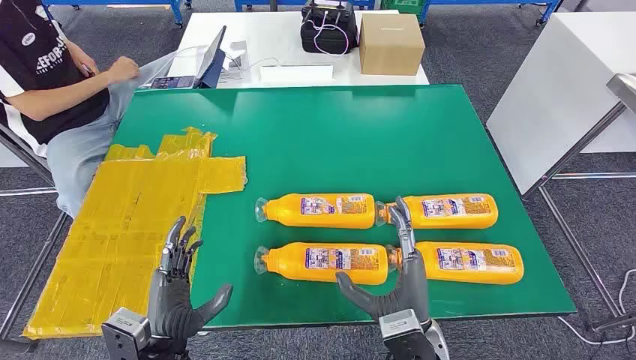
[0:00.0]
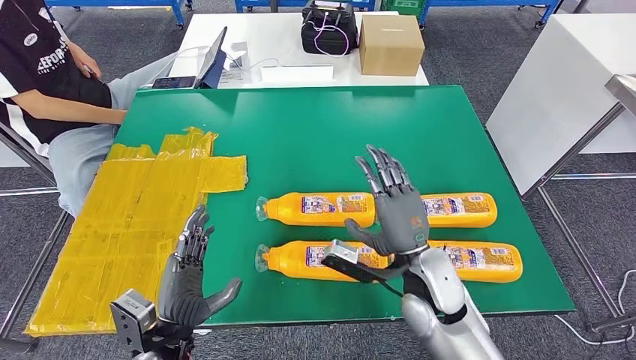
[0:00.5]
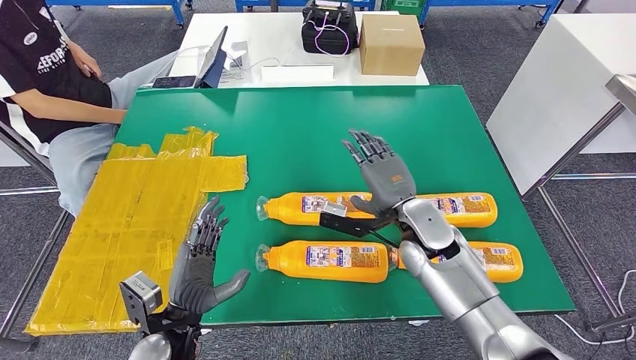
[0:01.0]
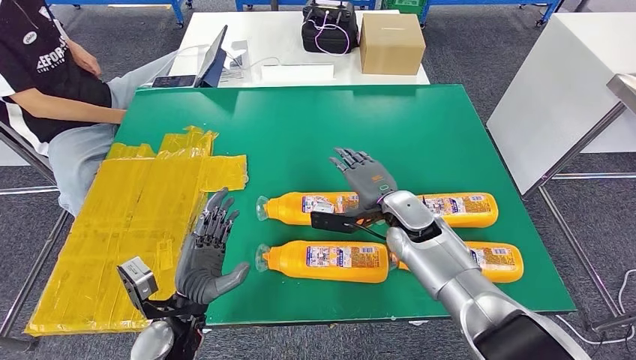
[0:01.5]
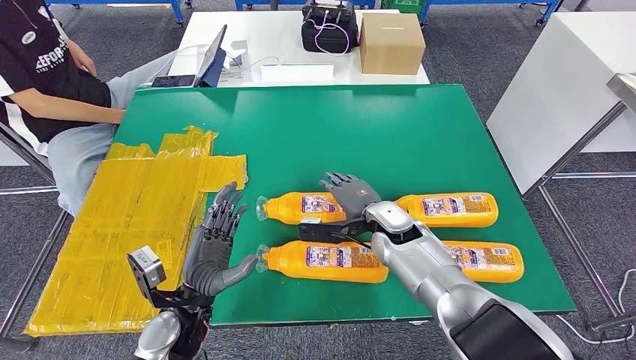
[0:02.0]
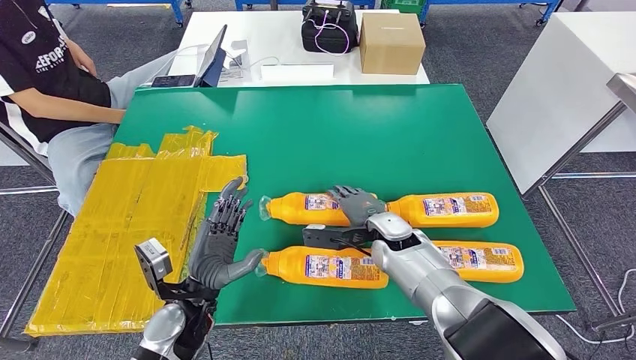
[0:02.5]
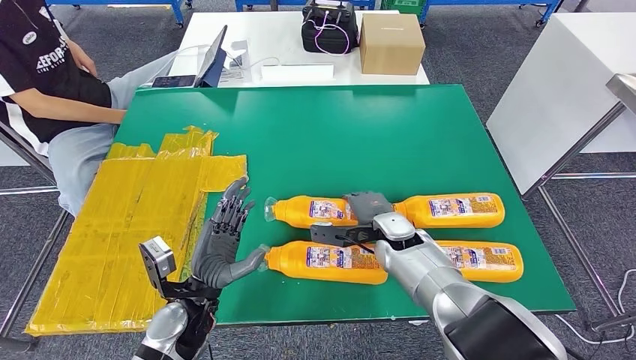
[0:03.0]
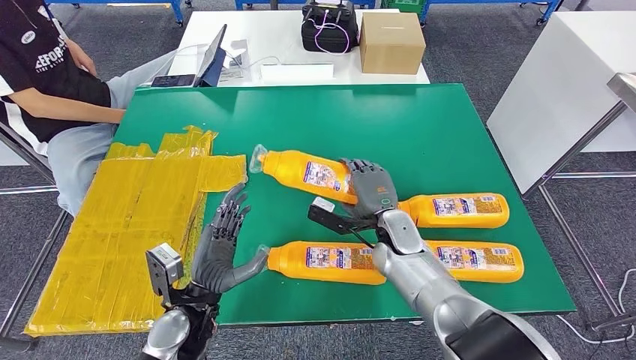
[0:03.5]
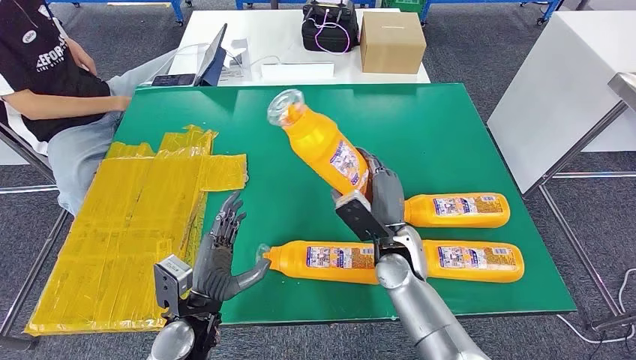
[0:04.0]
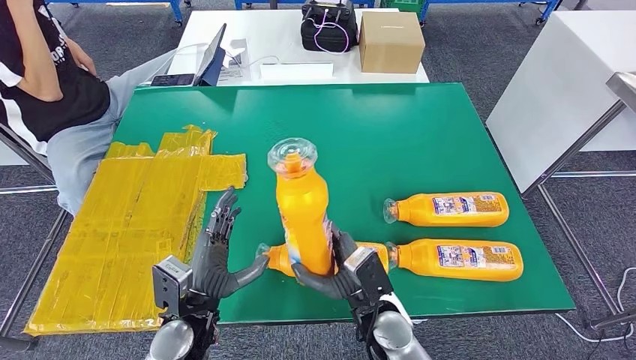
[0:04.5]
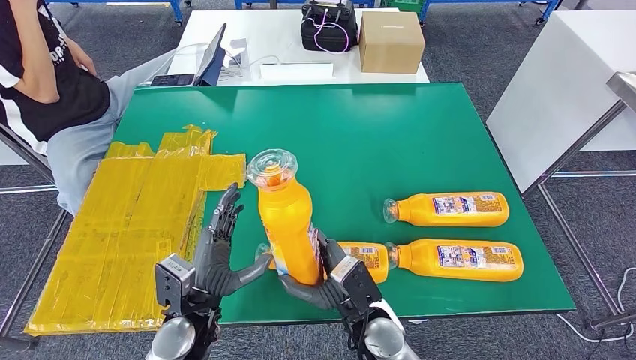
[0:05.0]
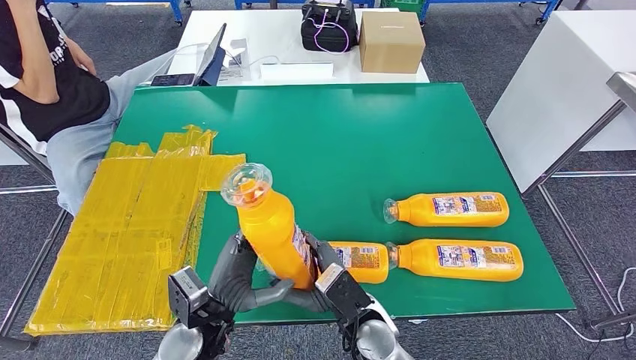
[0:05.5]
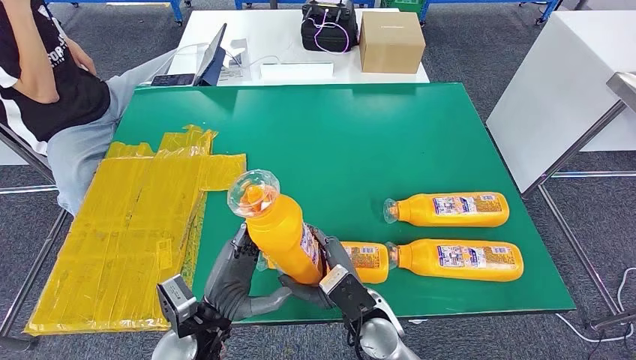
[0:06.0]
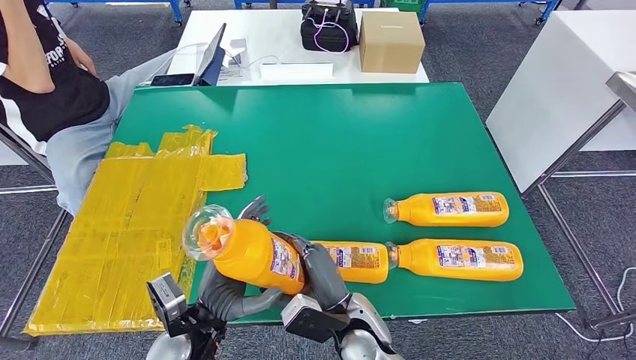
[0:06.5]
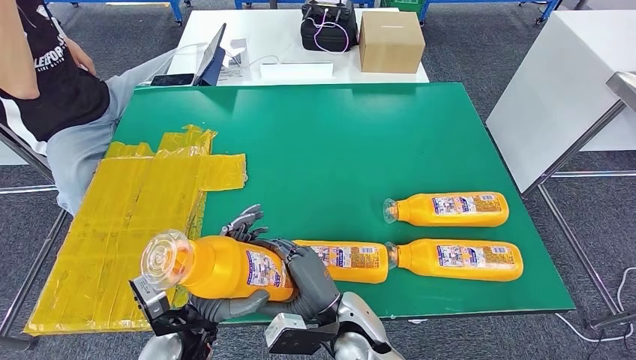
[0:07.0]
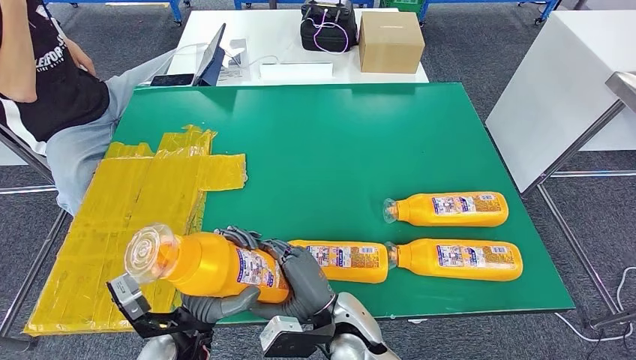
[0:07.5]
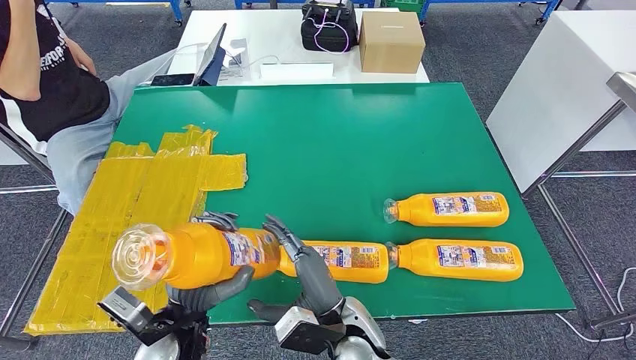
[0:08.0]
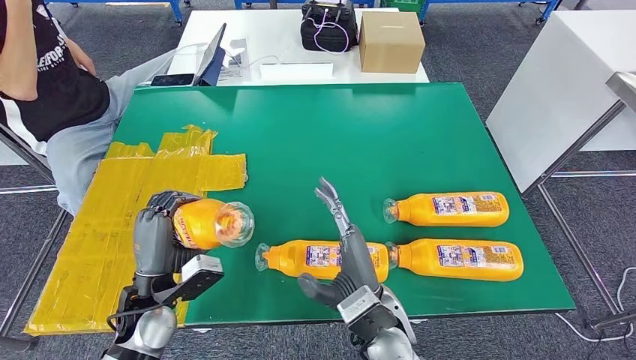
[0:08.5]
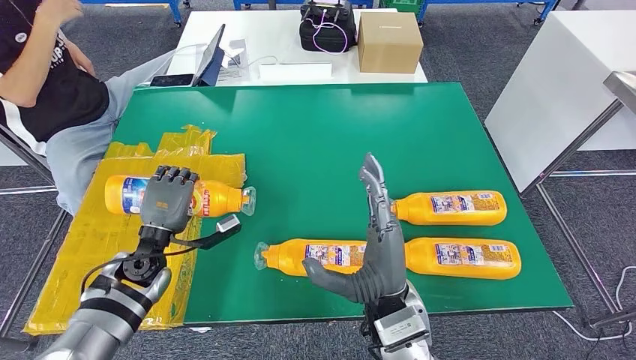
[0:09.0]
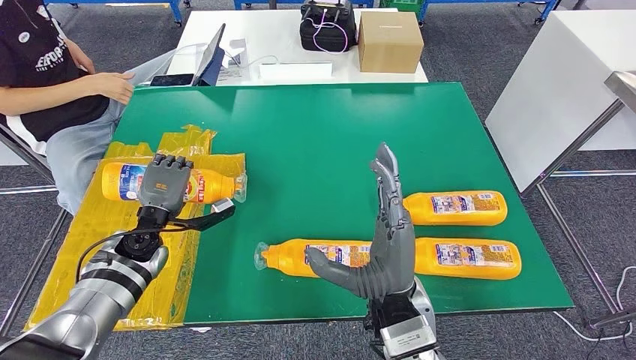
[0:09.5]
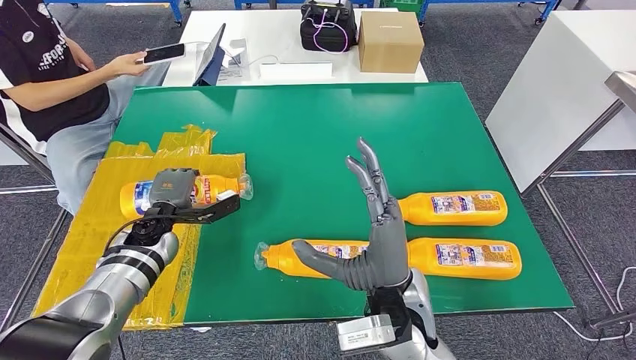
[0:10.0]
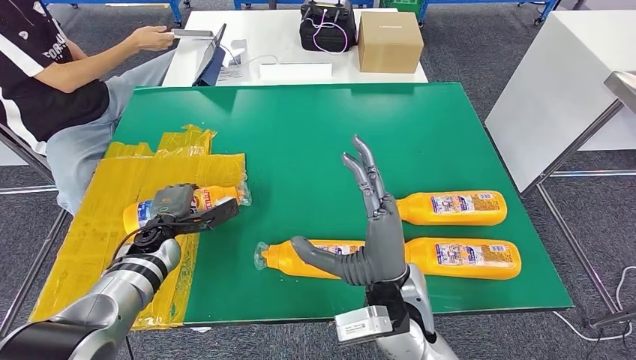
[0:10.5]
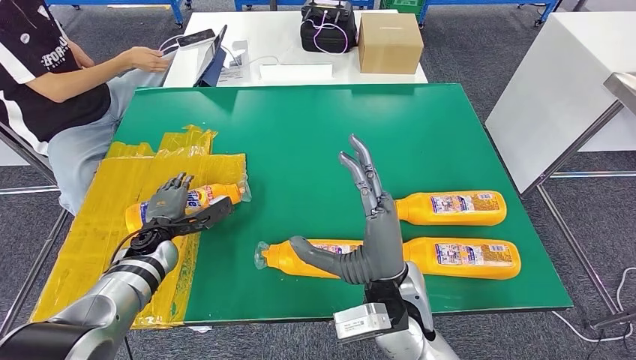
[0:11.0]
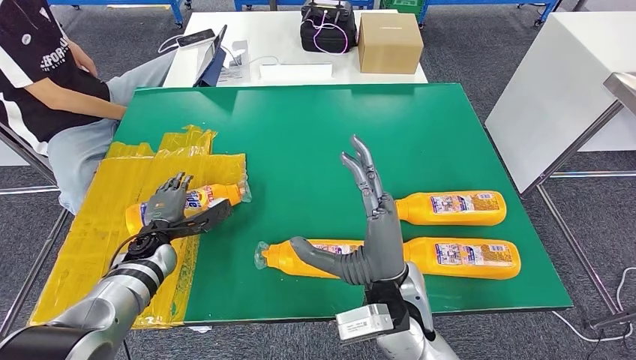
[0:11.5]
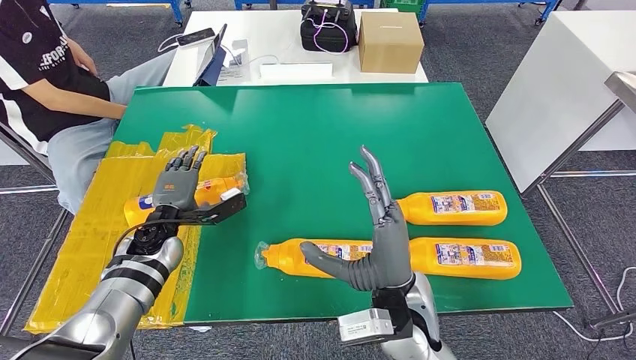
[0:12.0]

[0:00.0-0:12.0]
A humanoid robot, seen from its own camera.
Step, 0:00.0 to 0:05.5: Take the fast-moving consumer goods bottle from the table.
Step, 0:06.0 to 0:10.0: Flip the fast-moving consumer goods bottle to the front side.
0:02.0 to 0:04.0: The right hand goes some 5 cm backward.
0:04.0 to 0:06.0: The right hand moves backward and to the left, approximately 10 cm.

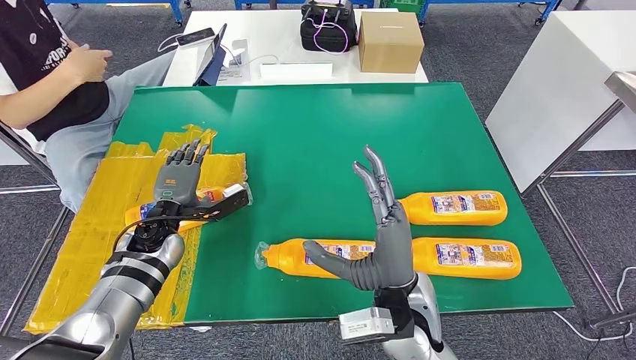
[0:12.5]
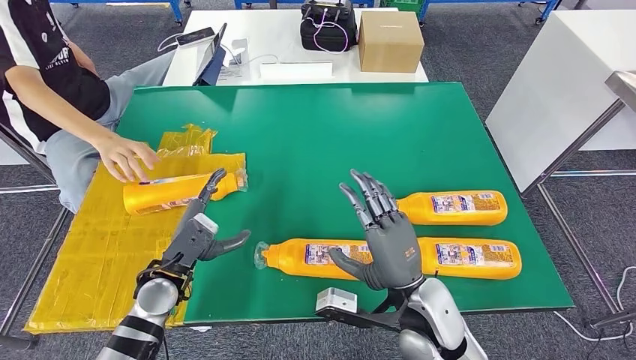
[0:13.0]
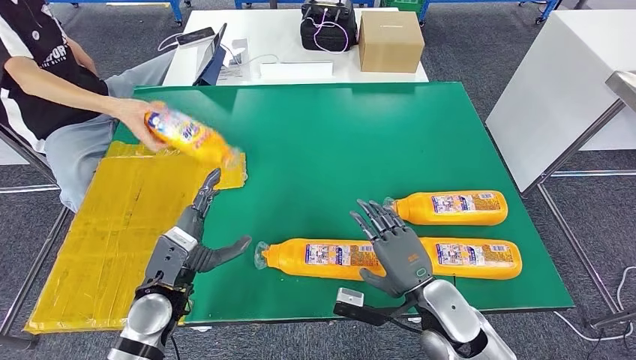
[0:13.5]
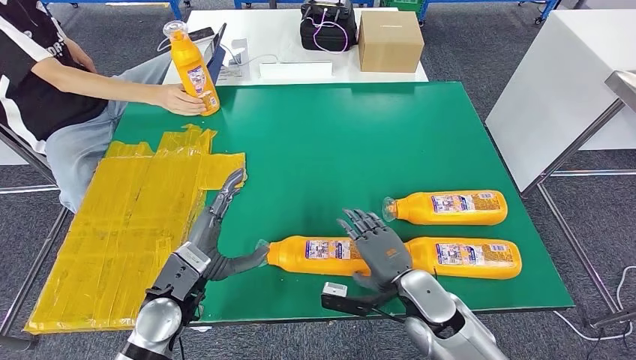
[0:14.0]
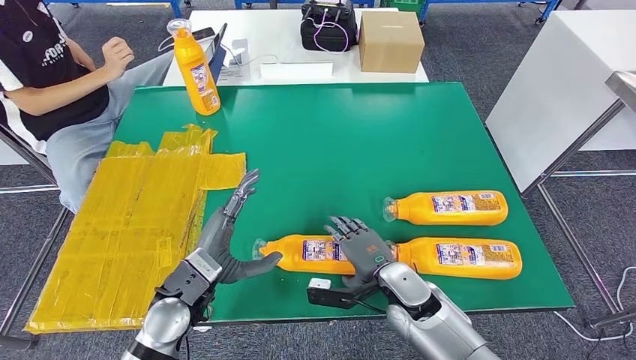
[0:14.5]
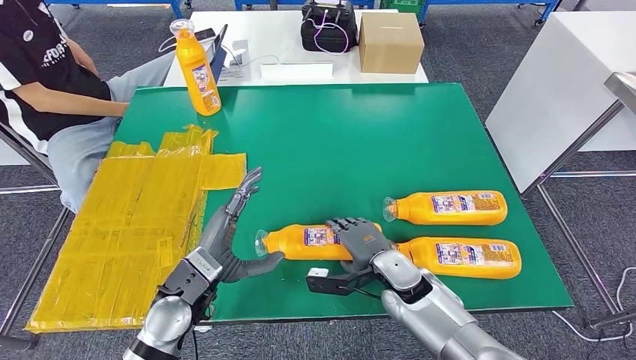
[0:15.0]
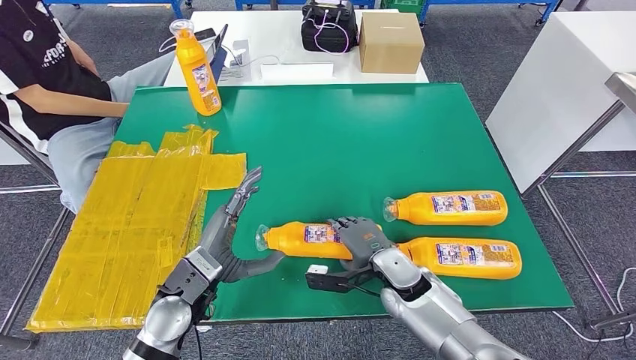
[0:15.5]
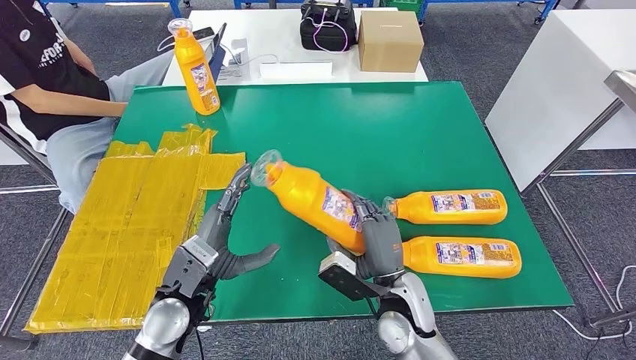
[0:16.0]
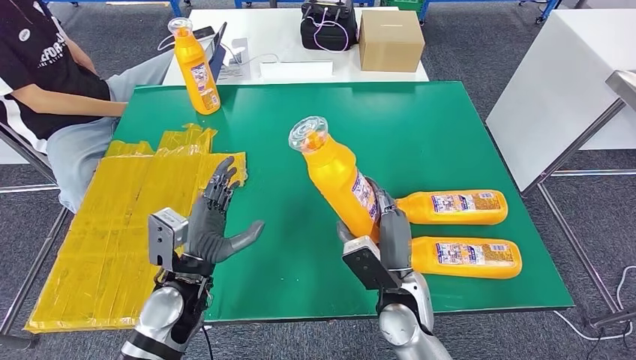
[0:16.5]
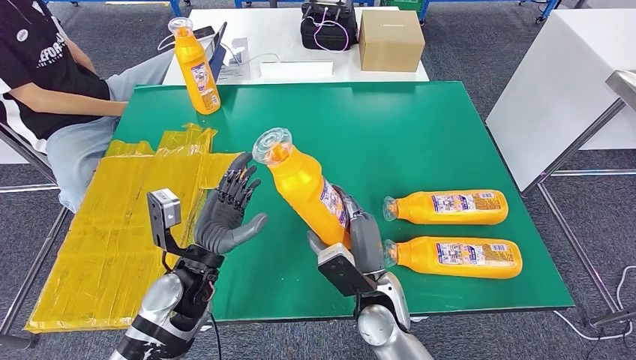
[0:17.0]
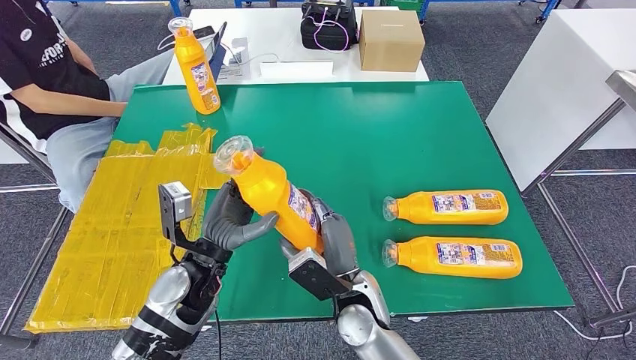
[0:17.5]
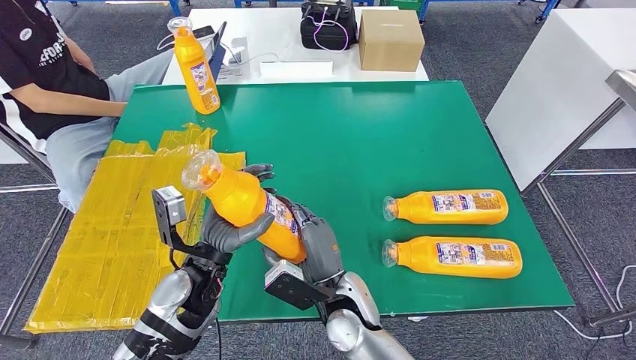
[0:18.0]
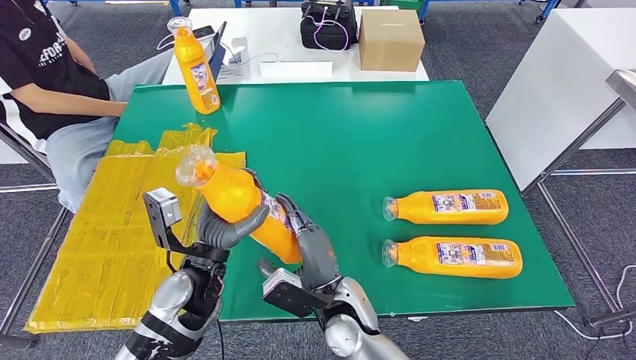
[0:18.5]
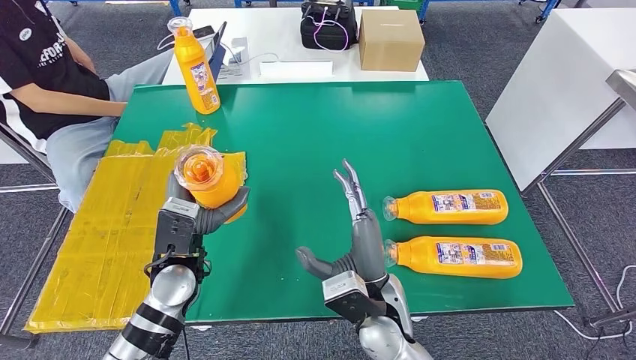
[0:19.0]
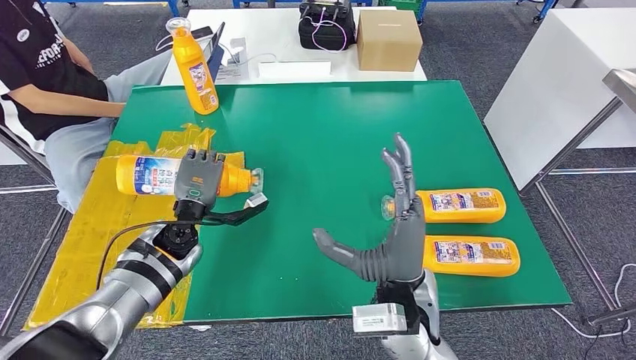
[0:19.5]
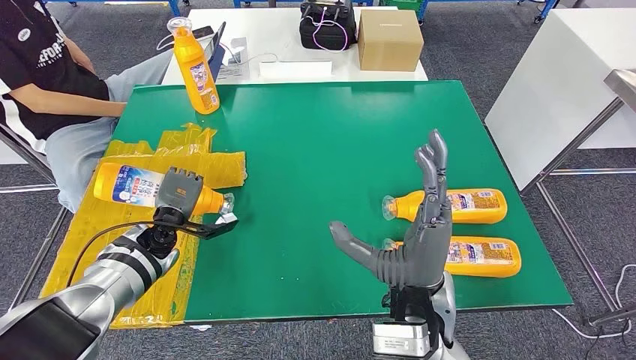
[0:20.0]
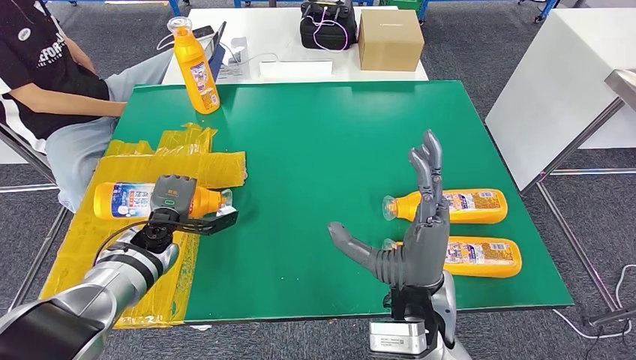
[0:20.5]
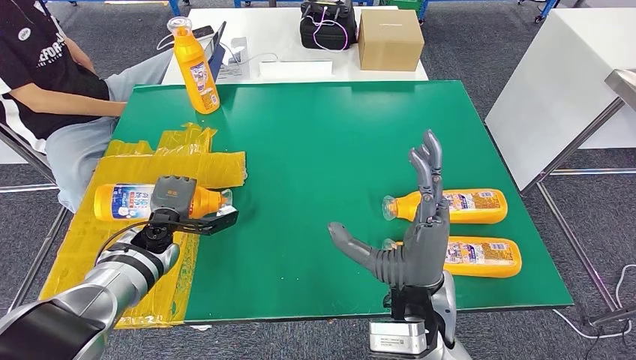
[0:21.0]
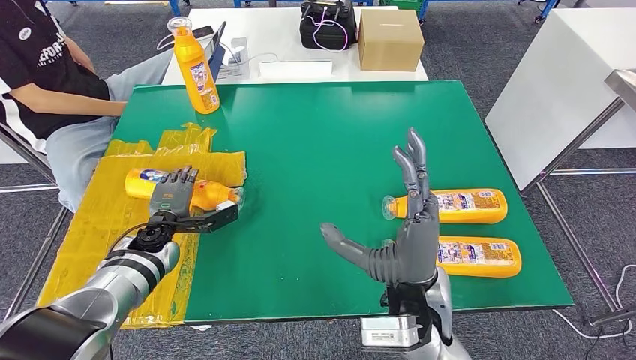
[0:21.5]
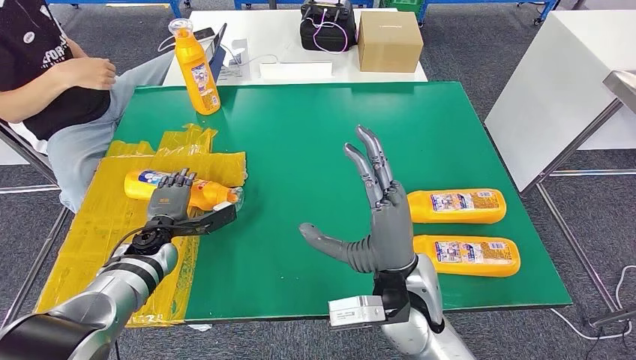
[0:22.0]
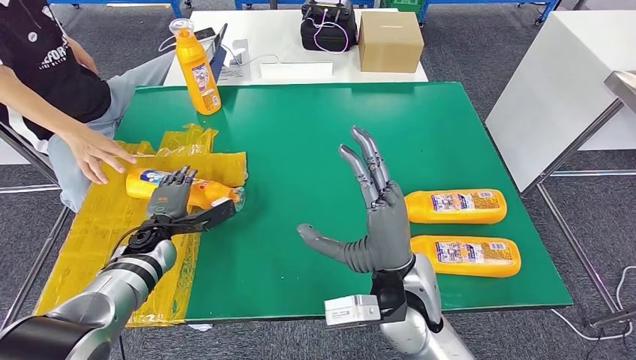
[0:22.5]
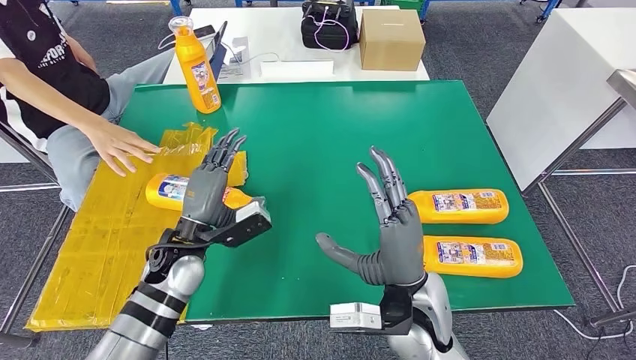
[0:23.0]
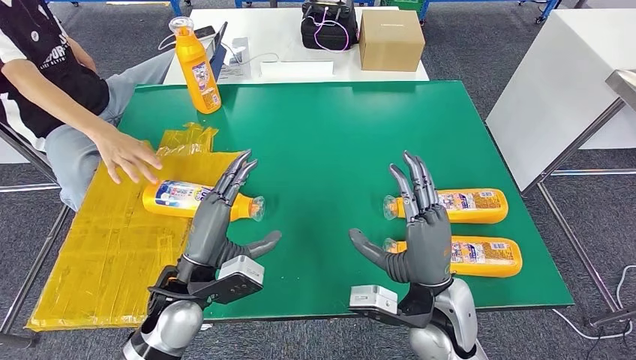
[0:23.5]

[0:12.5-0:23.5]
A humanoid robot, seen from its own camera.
Step, 0:12.5 to 0:20.0: Pick up the fast-moving consumer goods bottle from the table.
Step, 0:20.5 to 0:23.0: Flip the fast-moving consumer goods bottle to the front side.
0:16.0 to 0:18.0: The right hand goes some 10 cm to the left.
